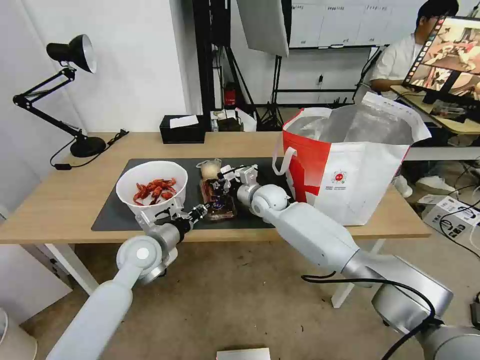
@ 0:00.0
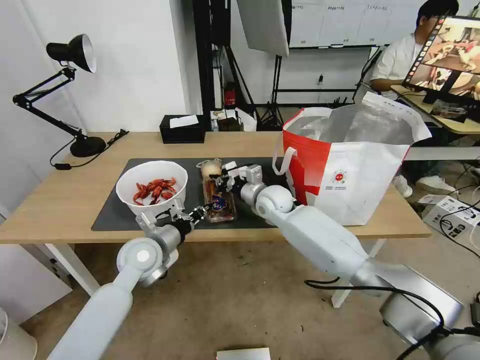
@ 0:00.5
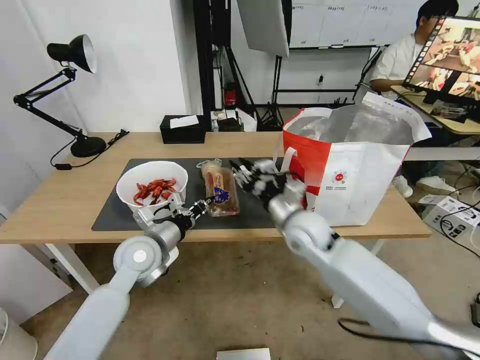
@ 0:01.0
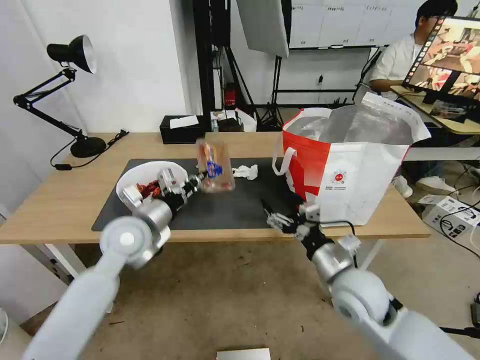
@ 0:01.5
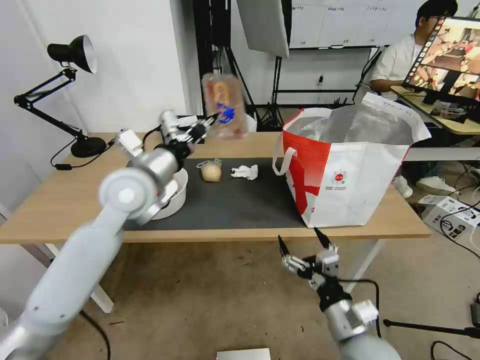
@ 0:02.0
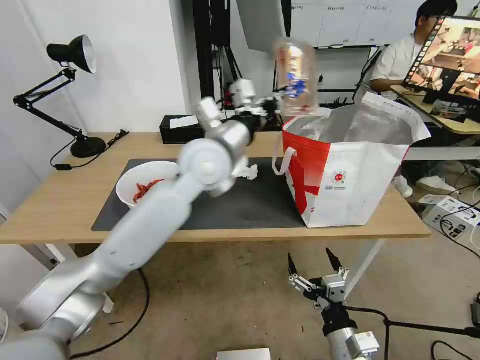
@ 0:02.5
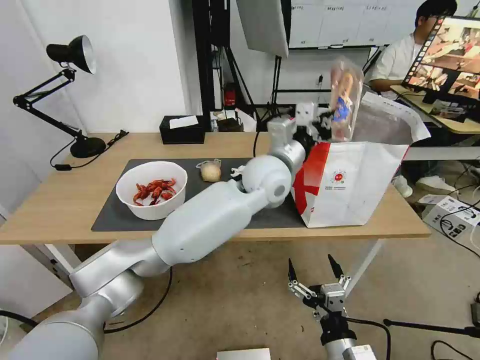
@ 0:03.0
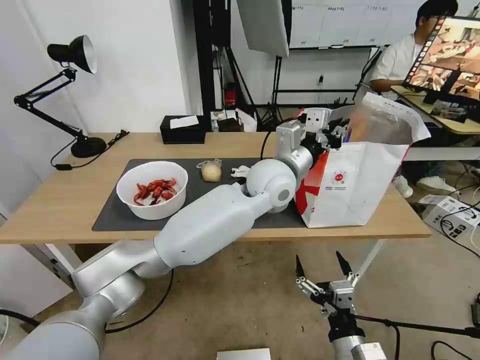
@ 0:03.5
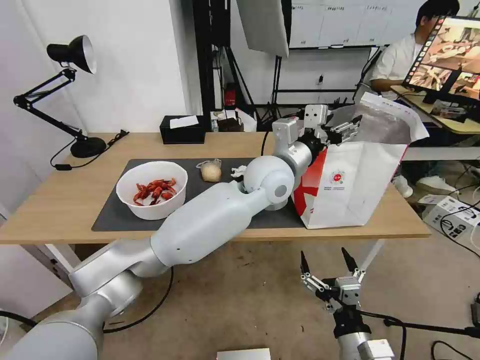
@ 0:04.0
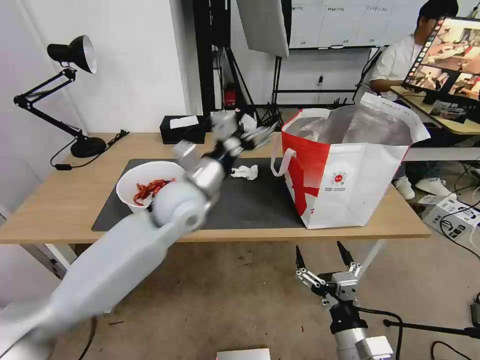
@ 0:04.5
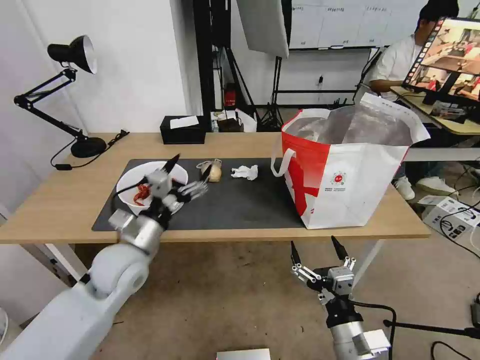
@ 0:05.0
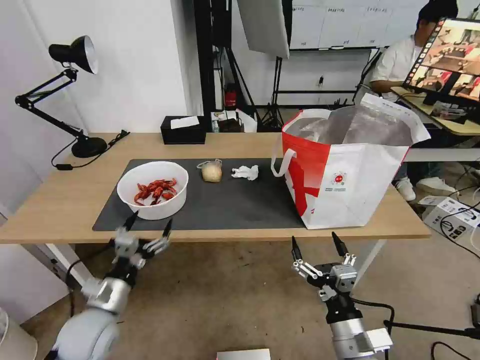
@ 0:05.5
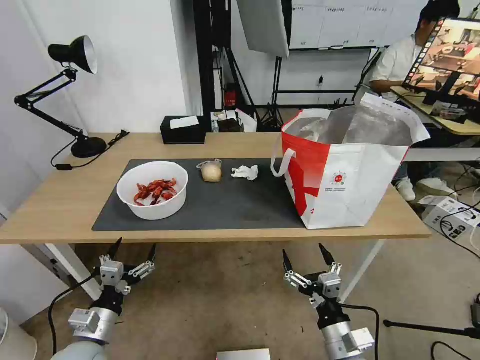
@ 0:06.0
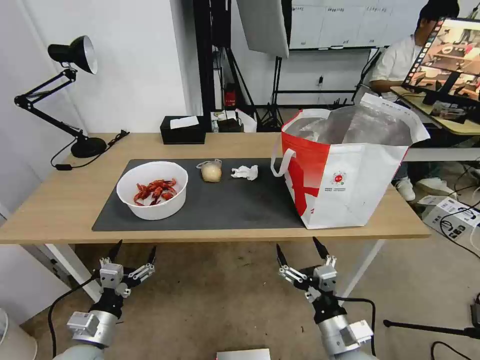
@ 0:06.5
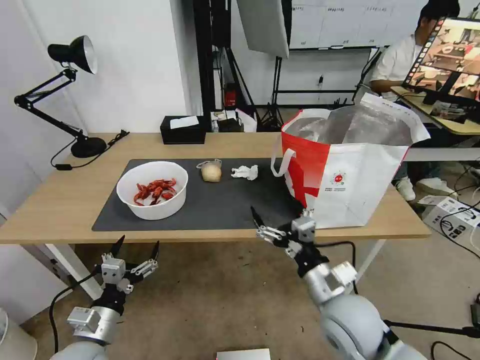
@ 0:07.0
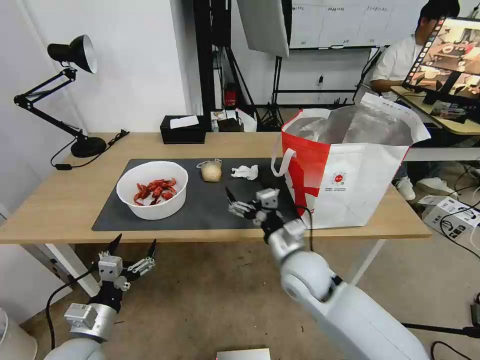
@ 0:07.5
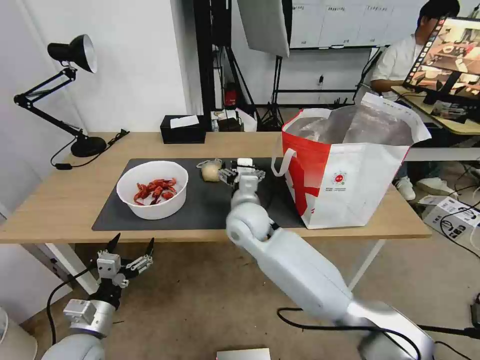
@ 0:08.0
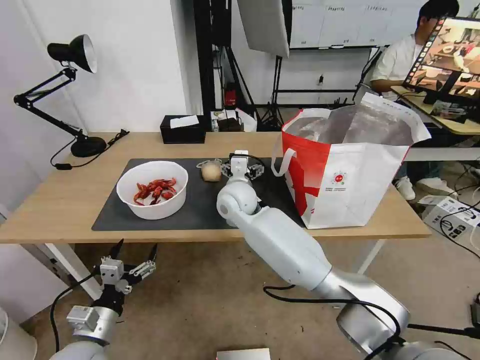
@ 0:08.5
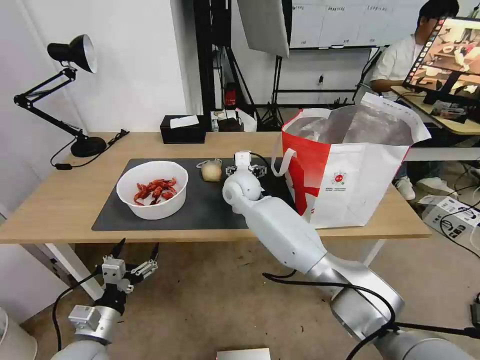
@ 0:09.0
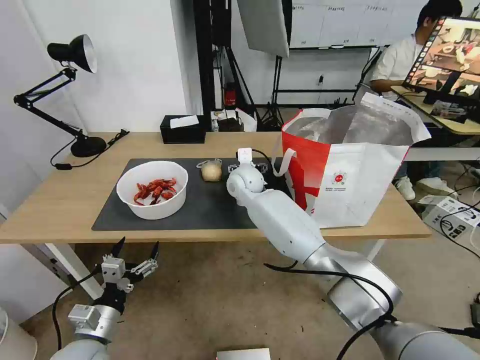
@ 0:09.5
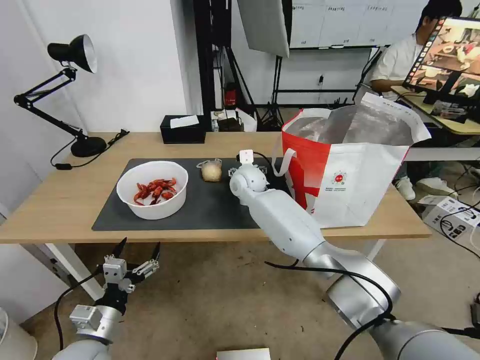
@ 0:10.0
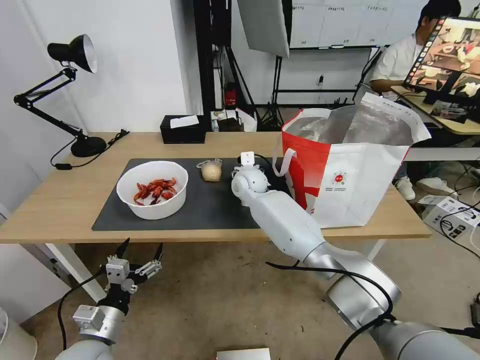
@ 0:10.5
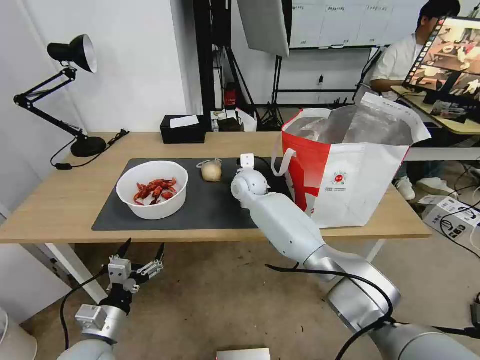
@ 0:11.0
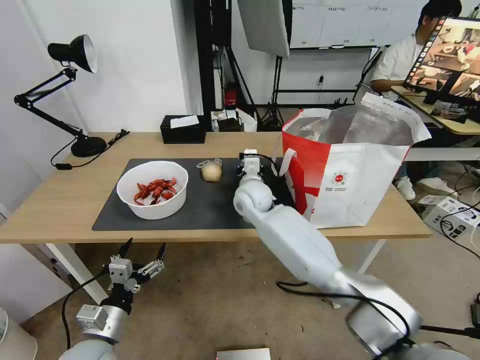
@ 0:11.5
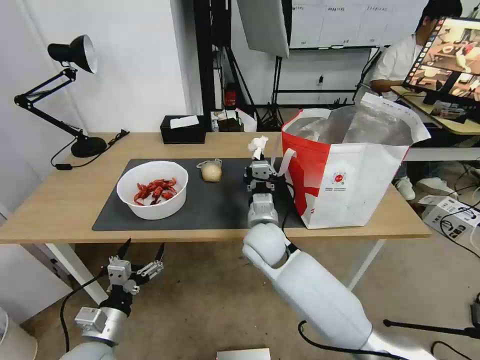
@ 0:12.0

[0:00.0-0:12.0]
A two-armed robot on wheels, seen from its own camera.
Task of the whole recording: Pick up the trash from the table and place it into the takeout bag.
0:00.0 to 0:02.0: The left gripper shifts roughly 15 cm upward; the right gripper shifts approximately 35 cm backward, and opens its fingers.
0:02.0 to 0:04.0: The left gripper moves to the right, approximately 25 cm, and opens, while the right gripper travels backward by roughly 5 cm.
0:04.0 to 0:06.0: The left gripper goes roughly 50 cm to the left, downward and backward.
0:06.0 to 0:08.0: The right gripper moves forward, to the left and upward, roughly 35 cm.
0:08.0 to 0:10.0: The right gripper moves forward, about 15 cm.
0:10.0 to 0:12.0: The right gripper heads backward, covering roughly 20 cm, and closes.

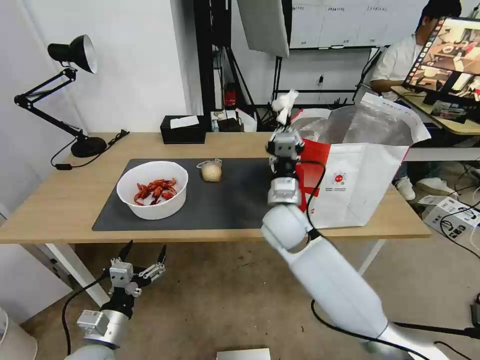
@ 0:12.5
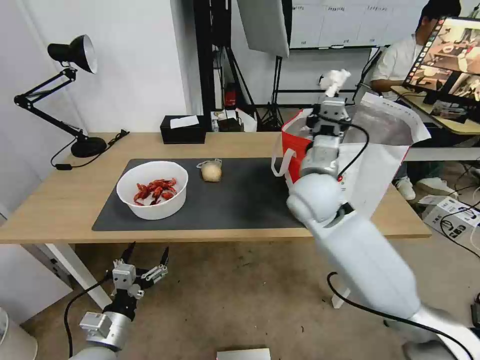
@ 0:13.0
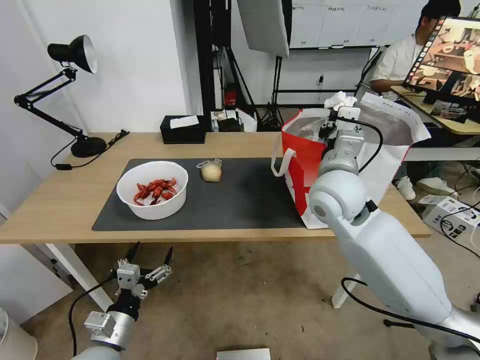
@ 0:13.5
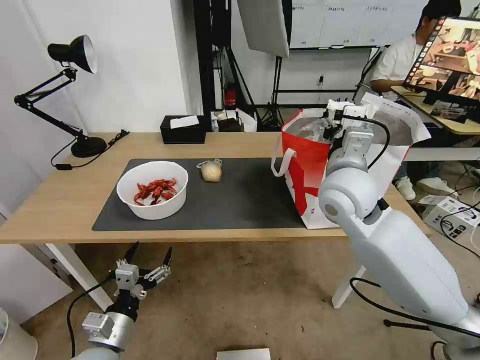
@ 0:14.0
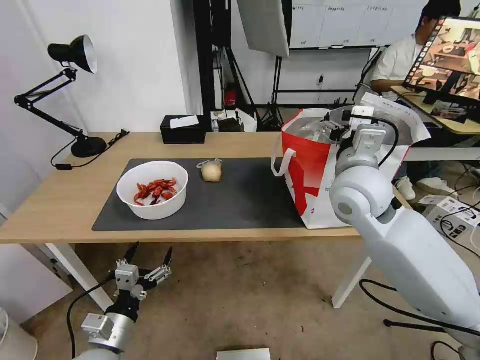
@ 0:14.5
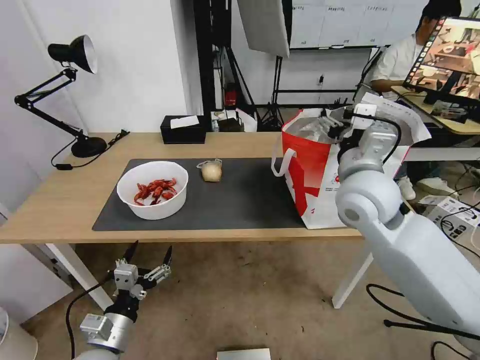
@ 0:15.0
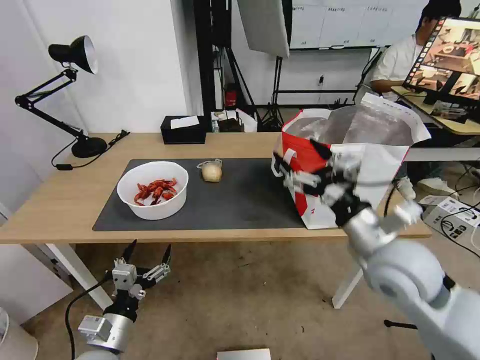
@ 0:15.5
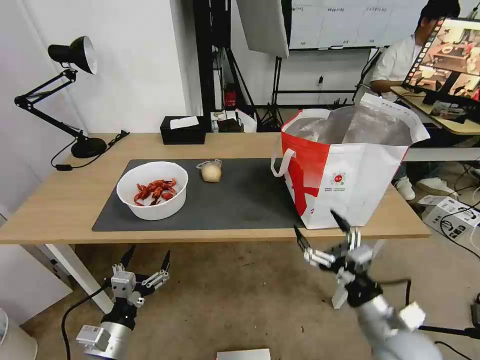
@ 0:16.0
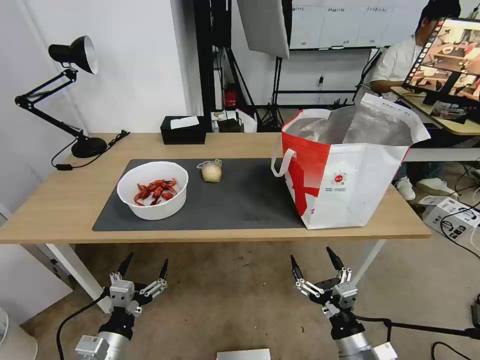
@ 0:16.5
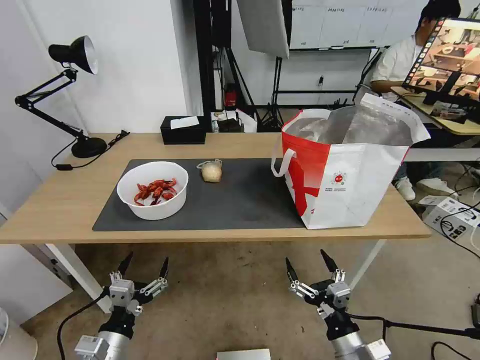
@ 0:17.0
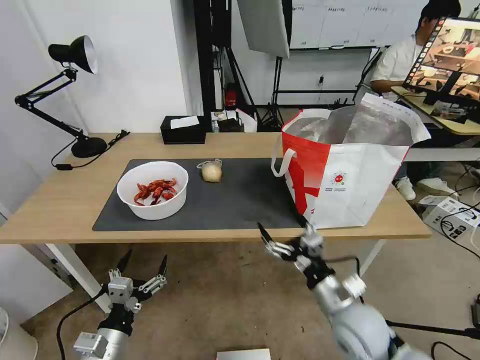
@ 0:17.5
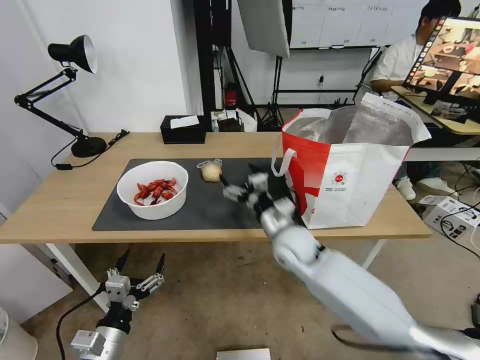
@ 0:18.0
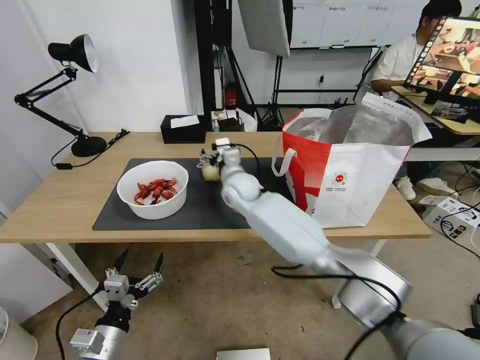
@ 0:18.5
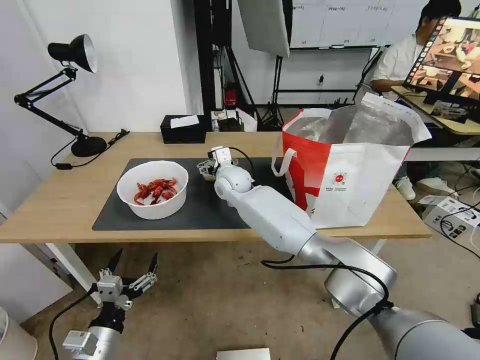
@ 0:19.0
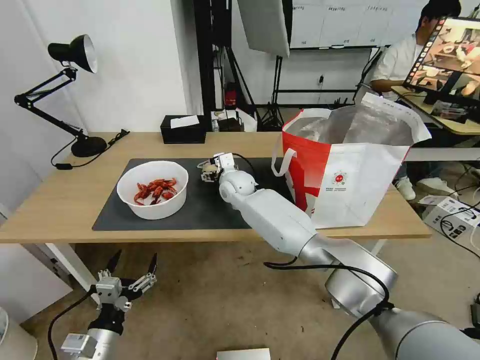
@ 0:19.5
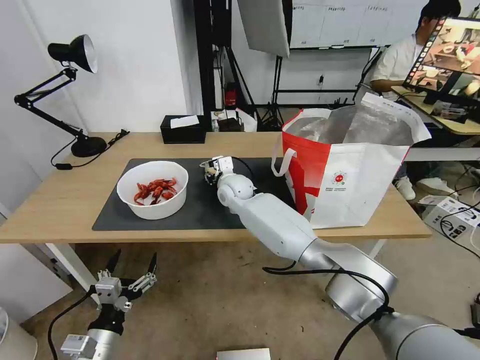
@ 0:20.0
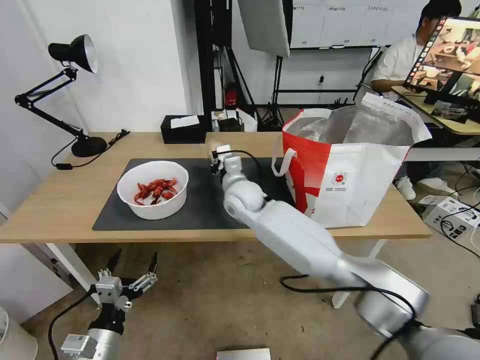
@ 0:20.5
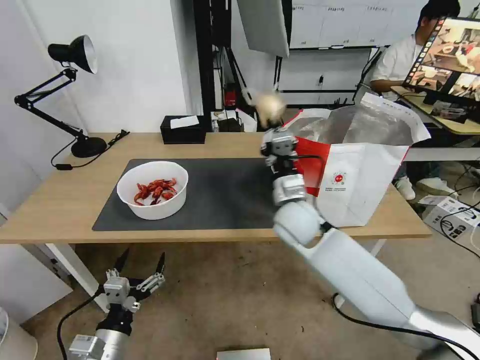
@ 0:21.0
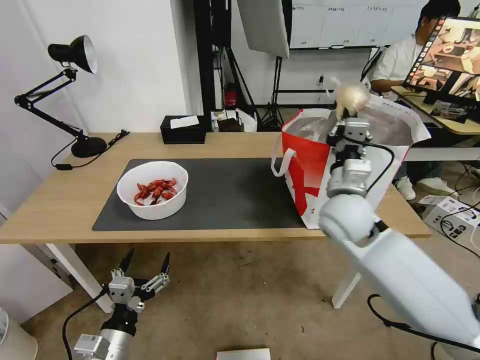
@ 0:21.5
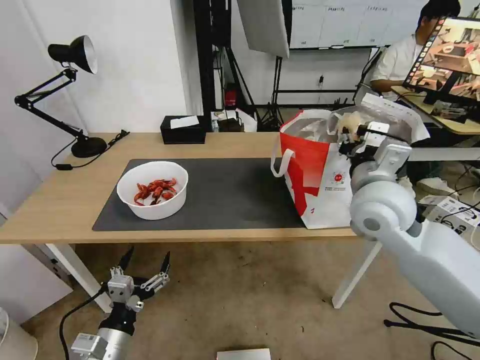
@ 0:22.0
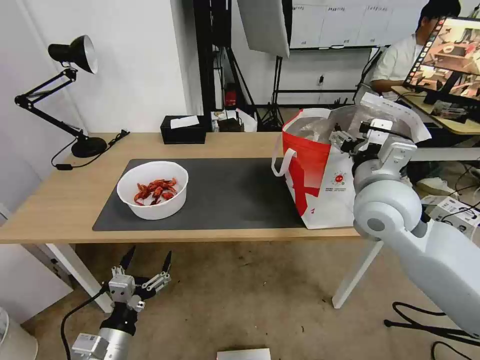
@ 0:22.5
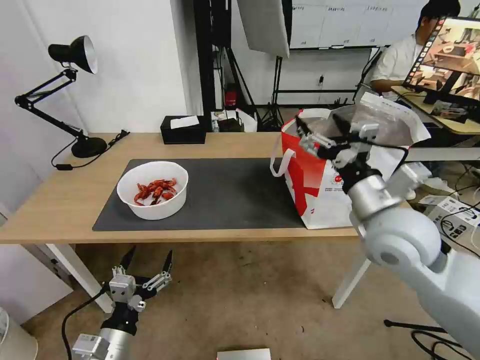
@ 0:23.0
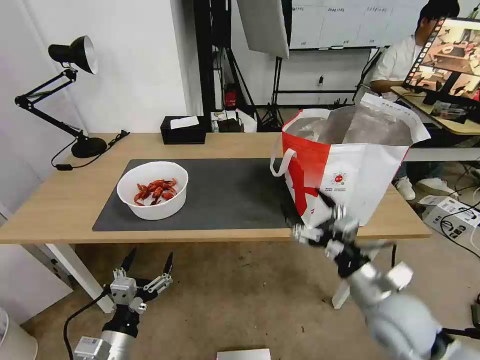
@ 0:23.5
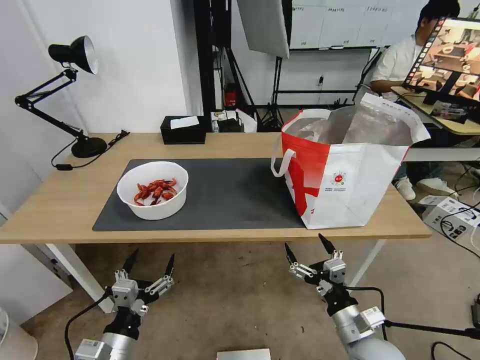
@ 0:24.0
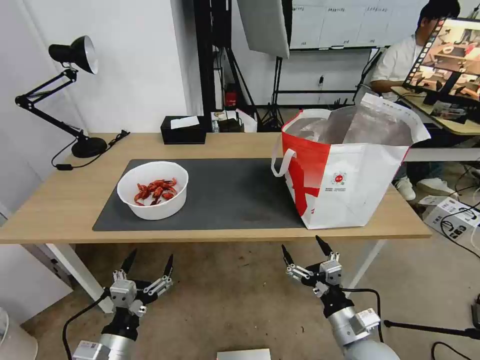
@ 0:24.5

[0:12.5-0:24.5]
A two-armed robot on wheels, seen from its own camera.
Task of the whole recording: Pick up the trash from the table and place it into the takeout bag.
0:12.5 to 0:14.5: The right gripper goes approximately 15 cm upward and to the right, and opens up.
0:14.5 to 0:16.5: The right gripper moves downward and backward, roughly 40 cm.
0:16.5 to 0:18.5: The right gripper moves forward and to the left, roughly 50 cm.
0:18.5 to 0:20.5: The right gripper closes up.
0:20.5 to 0:22.5: The right gripper heads to the right, backward and upward, covering some 30 cm, and opens.
0:22.5 to 0:24.5: The right gripper shifts approximately 30 cm downward and backward.

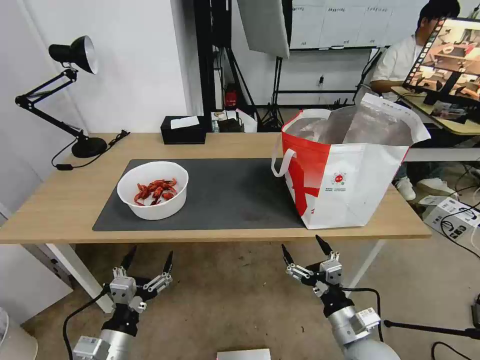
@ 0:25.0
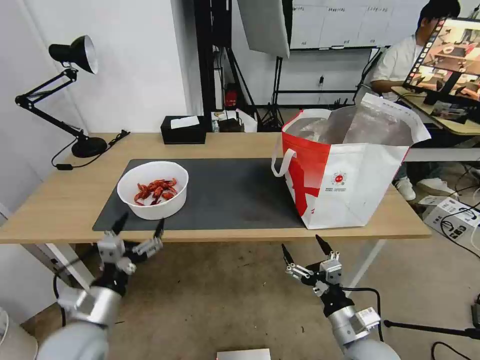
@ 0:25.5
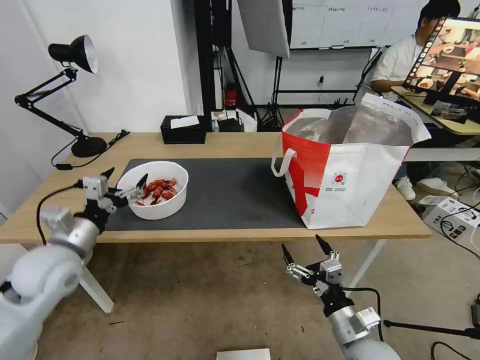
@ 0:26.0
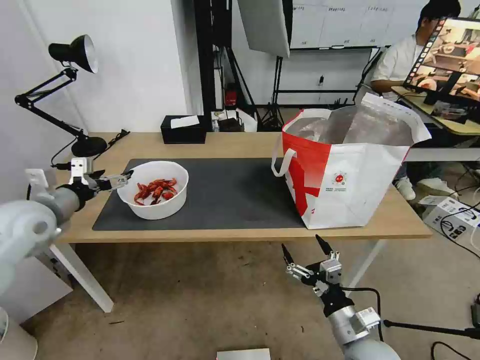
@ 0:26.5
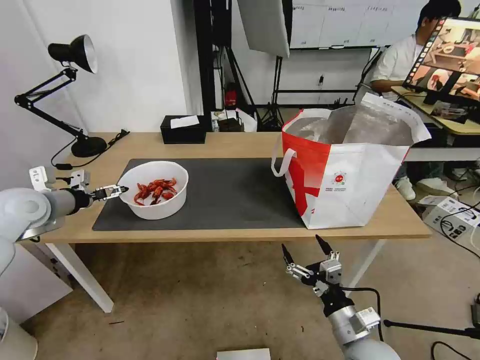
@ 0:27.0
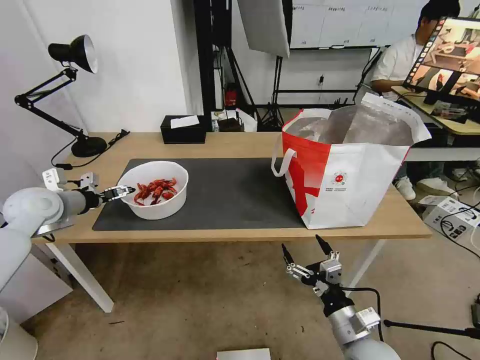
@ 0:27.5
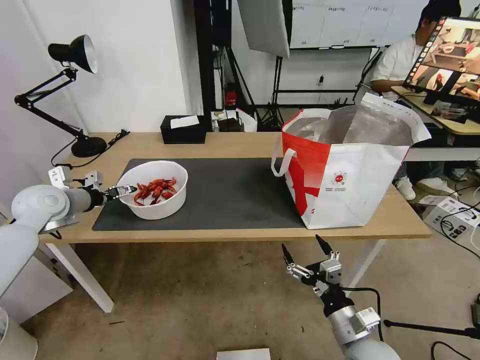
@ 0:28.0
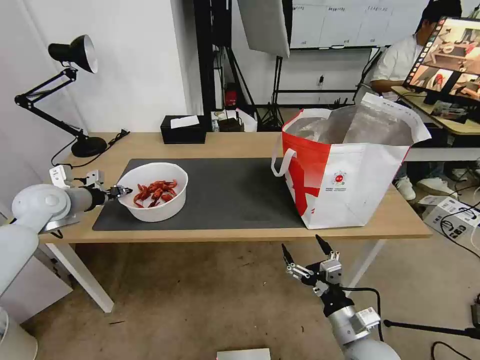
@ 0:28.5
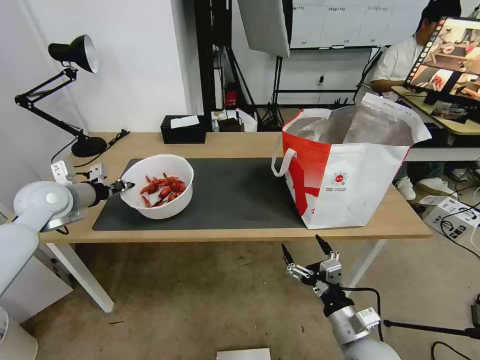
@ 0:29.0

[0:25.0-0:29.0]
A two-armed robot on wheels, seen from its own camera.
Task of the whole recording: Pick up the trash from the table and place it into the takeout bag.
0:25.0 to 0:27.0: The left gripper shifts roughly 40 cm forward, upward and to the left.
0:27.0 to 0:29.0: The left gripper closes.
